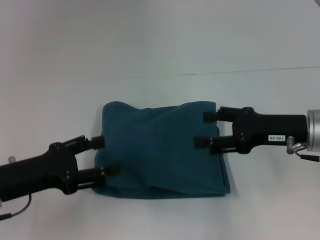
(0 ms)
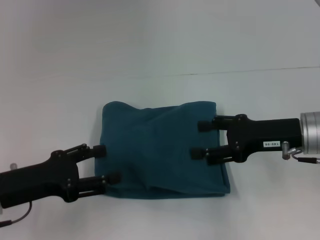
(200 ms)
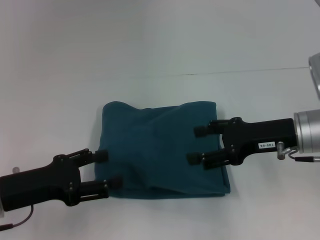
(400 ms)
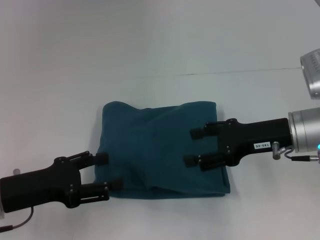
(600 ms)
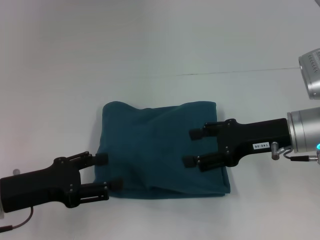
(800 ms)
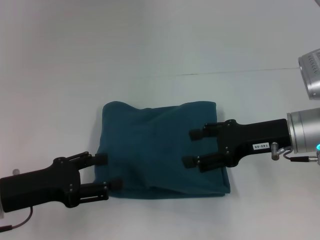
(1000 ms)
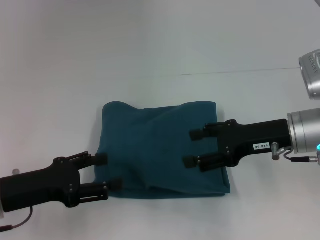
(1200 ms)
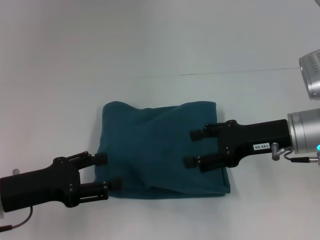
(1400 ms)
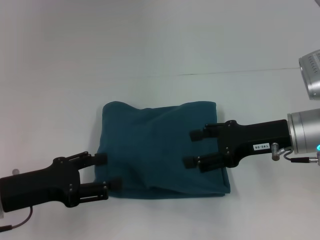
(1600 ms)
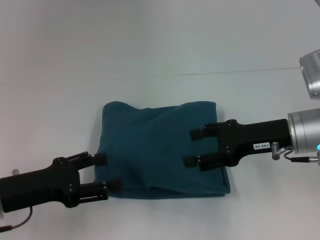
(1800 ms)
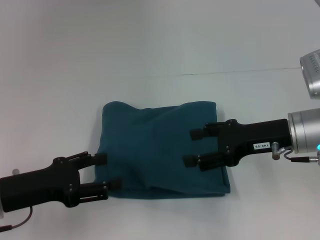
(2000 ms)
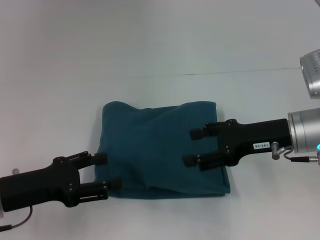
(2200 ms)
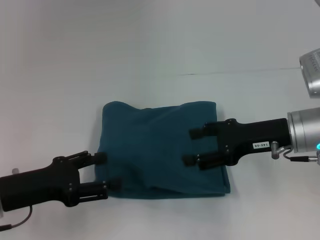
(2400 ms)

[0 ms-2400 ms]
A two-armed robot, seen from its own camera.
0 ms to 1200 ms: There are only small adjustments of the grippers.
1200 ms to 2400 ms: Both grippers stay about where they are.

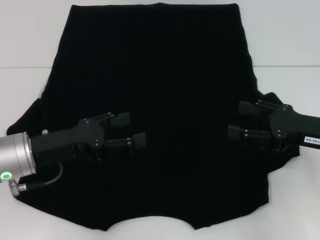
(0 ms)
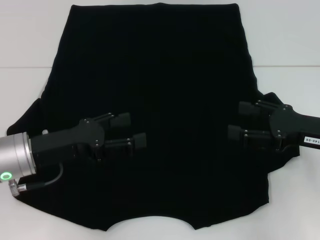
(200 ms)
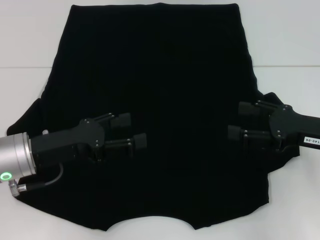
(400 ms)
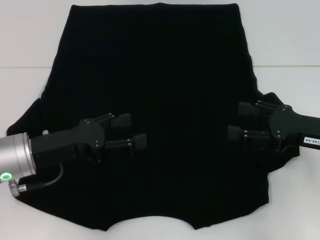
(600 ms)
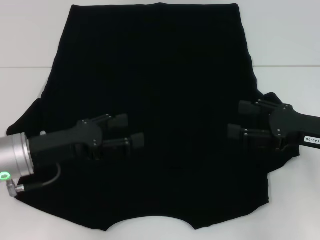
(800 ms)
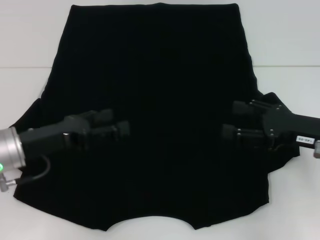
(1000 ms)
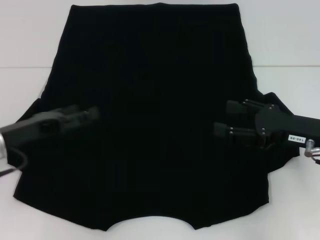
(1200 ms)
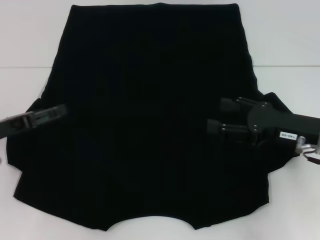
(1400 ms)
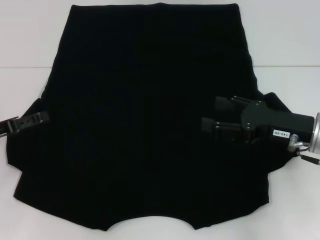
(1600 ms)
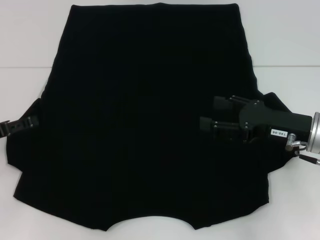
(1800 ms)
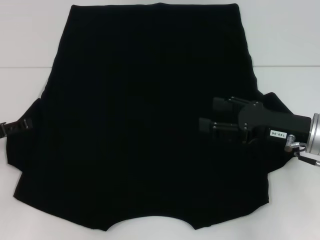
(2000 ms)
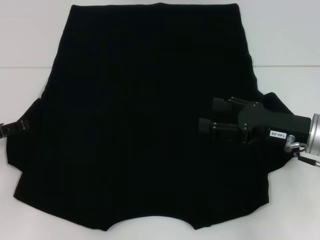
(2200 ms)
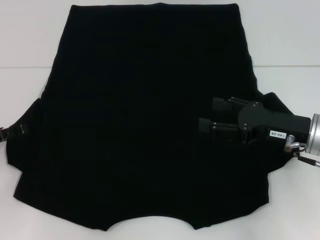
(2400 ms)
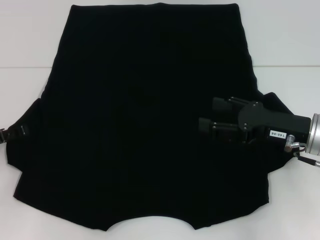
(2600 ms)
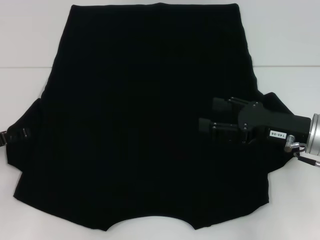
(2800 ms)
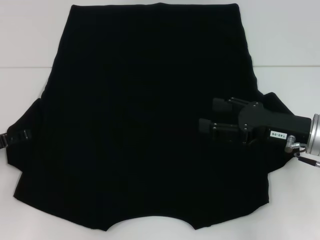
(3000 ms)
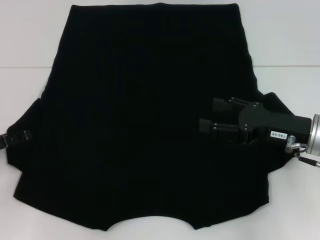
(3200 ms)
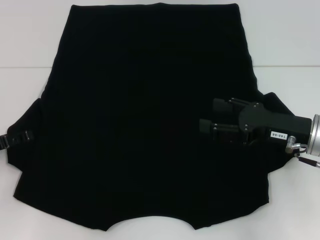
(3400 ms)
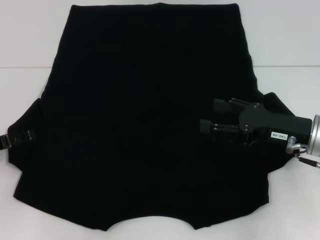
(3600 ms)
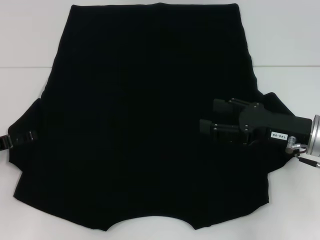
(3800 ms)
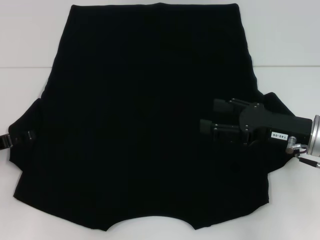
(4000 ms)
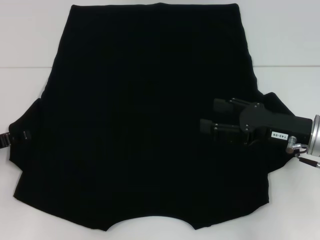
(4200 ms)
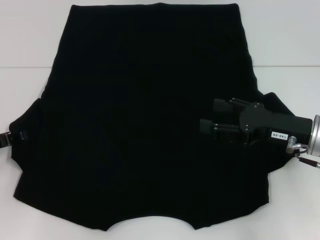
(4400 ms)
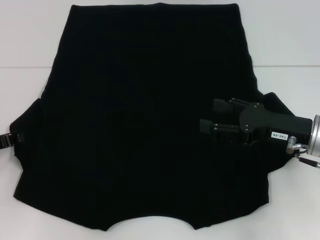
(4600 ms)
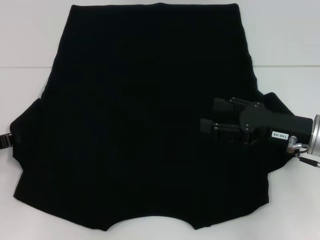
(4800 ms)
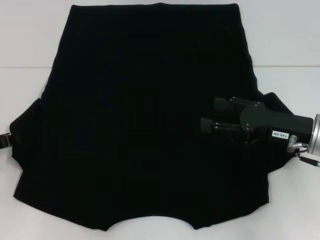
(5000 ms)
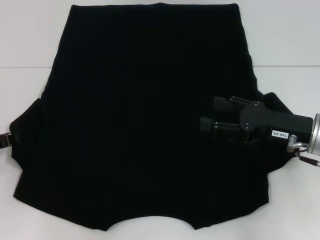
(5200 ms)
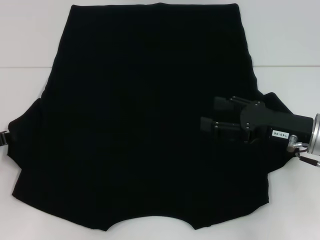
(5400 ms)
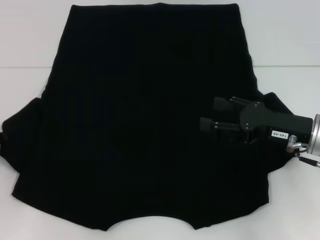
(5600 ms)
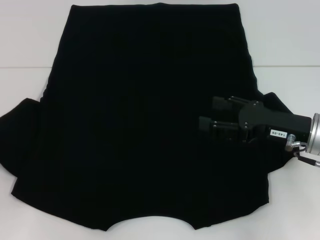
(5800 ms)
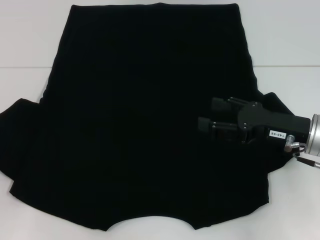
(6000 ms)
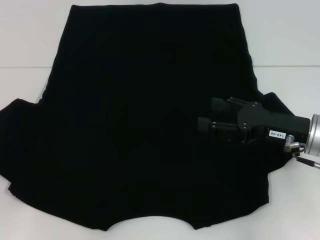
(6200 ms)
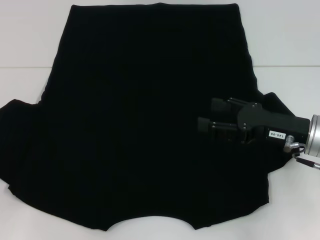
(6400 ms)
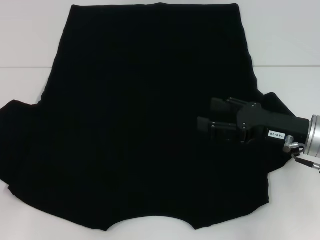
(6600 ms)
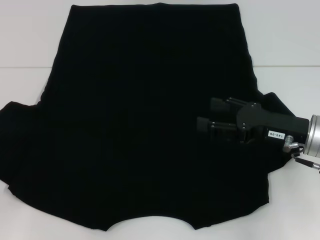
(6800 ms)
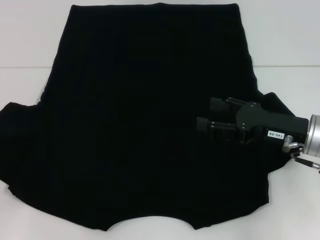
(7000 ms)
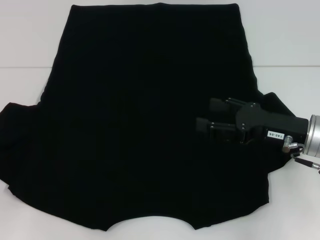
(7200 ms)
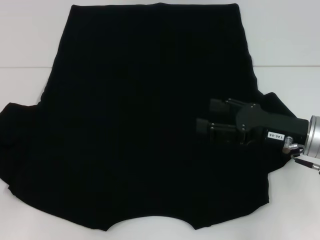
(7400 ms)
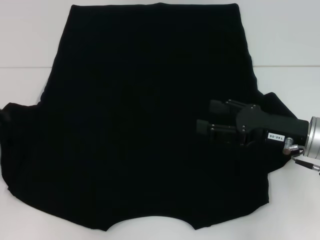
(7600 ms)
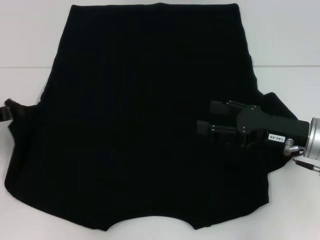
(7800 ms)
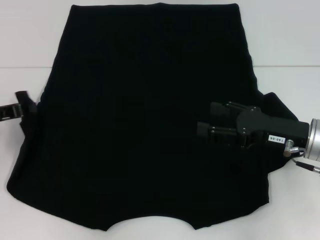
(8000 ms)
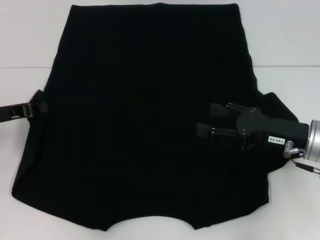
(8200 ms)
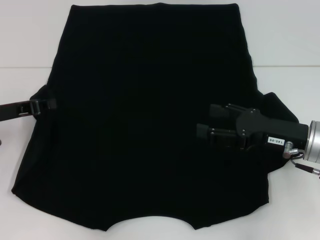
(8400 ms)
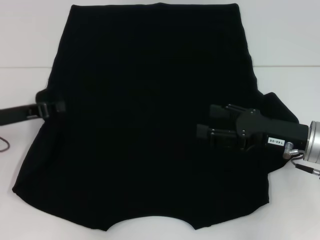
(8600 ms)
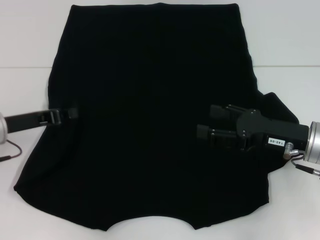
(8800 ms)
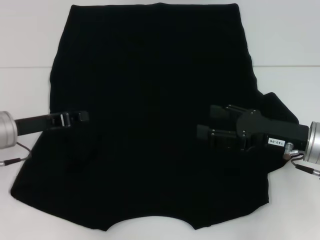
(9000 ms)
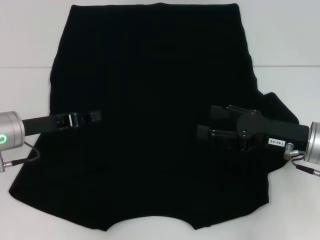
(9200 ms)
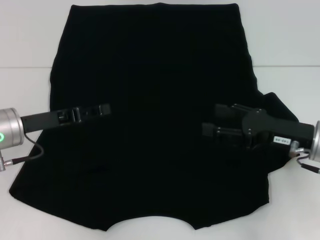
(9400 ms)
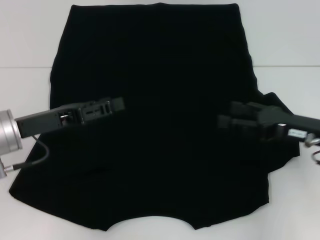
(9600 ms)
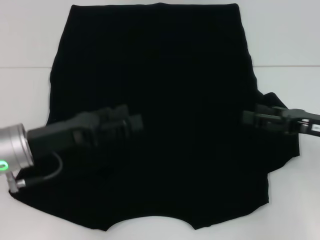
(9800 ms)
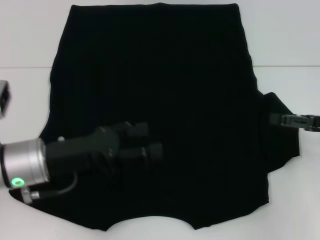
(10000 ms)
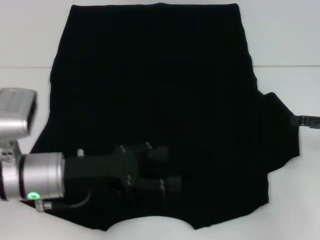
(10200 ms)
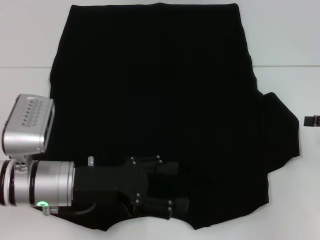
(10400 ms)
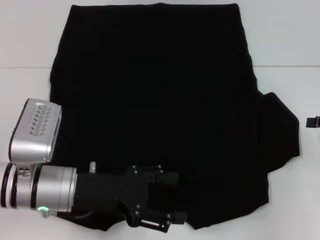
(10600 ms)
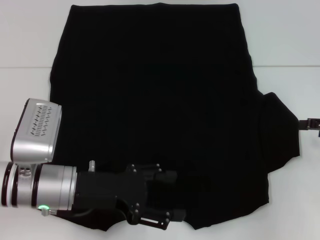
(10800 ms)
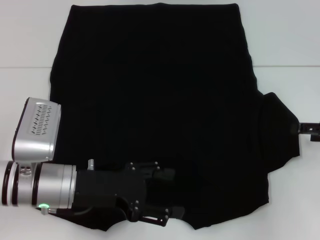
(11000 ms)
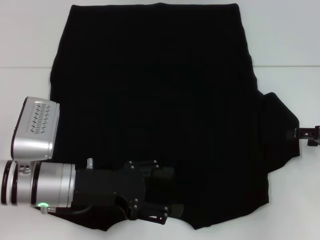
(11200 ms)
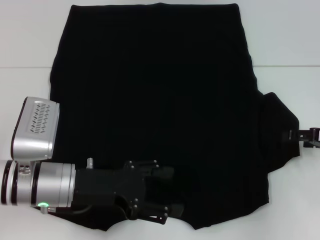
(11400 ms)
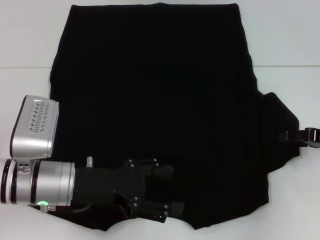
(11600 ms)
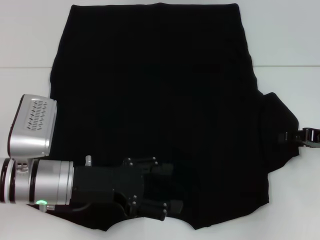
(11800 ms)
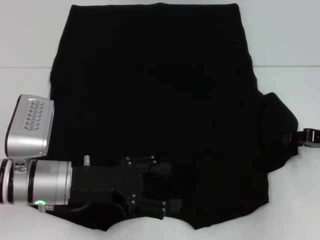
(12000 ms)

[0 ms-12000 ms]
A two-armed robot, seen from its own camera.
Step, 0 ms to 9400 ms: Fold the bottom left sleeve with your left hand.
0 ms to 1600 ms: The left gripper goes some 10 cm to the left.
1600 ms to 3000 ms: There are only small adjustments of the grippers.
3000 ms to 4400 ms: Neither gripper changes place.
4400 ms to 6000 ms: The left gripper closes.
6000 ms to 7600 ms: The grippers move only a little.
7600 ms to 9000 ms: The left gripper is displaced to the right by some 10 cm.
9000 ms to 10400 ms: The right gripper moves to the right, approximately 15 cm. The left gripper goes about 10 cm to the right and backward, and opens its fingers.
10400 ms to 12000 ms: The right gripper shifts by roughly 5 cm.

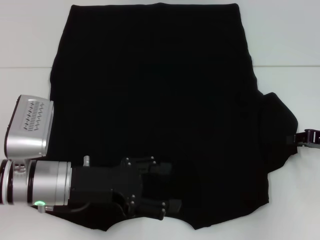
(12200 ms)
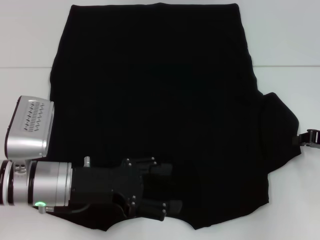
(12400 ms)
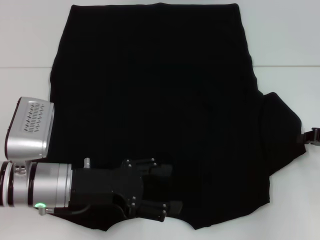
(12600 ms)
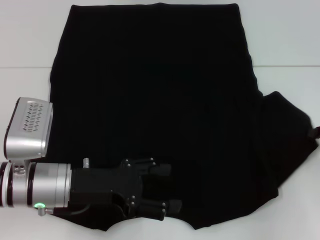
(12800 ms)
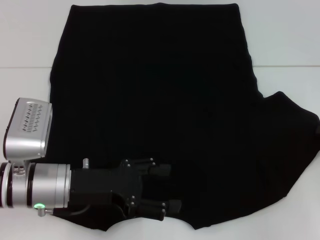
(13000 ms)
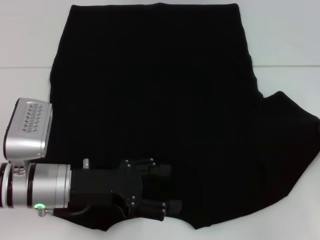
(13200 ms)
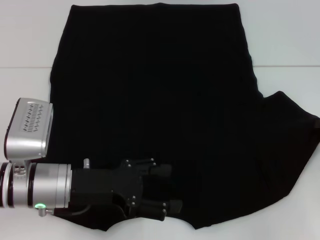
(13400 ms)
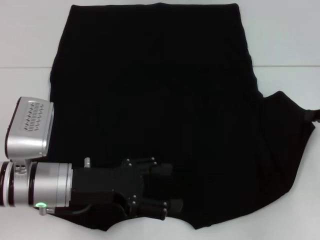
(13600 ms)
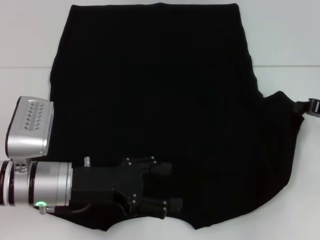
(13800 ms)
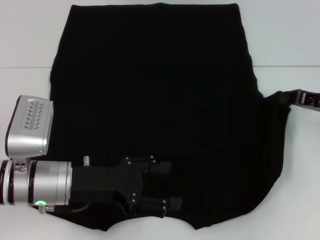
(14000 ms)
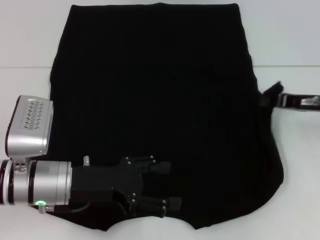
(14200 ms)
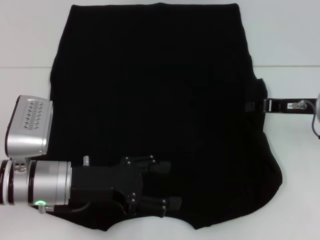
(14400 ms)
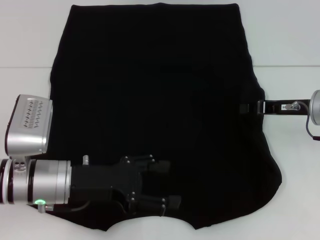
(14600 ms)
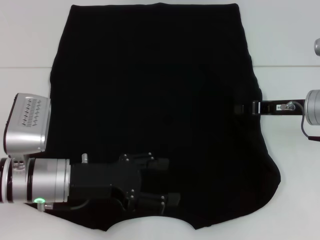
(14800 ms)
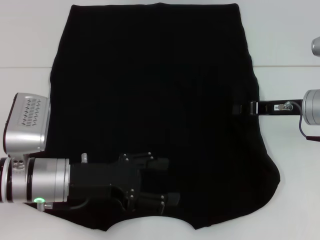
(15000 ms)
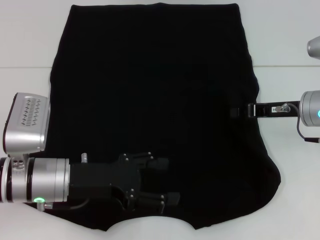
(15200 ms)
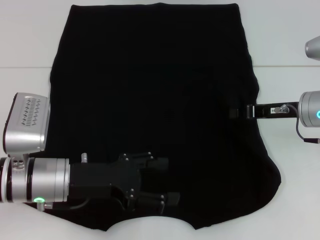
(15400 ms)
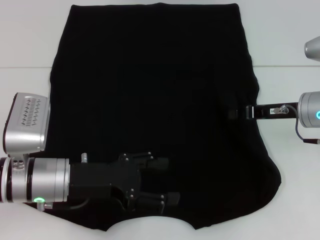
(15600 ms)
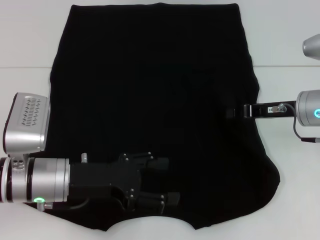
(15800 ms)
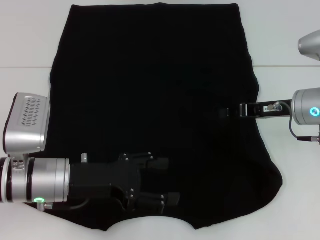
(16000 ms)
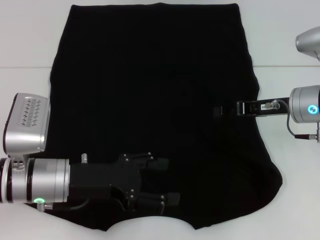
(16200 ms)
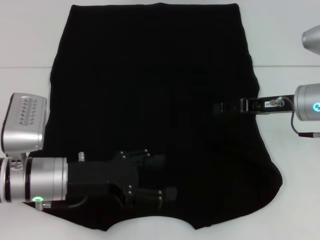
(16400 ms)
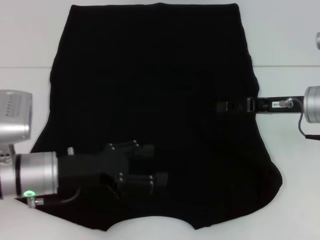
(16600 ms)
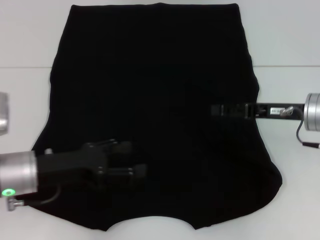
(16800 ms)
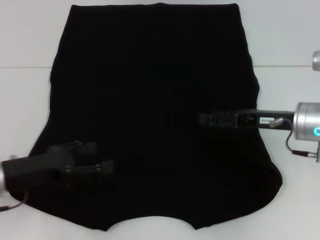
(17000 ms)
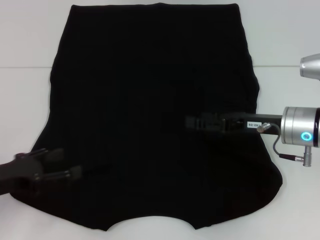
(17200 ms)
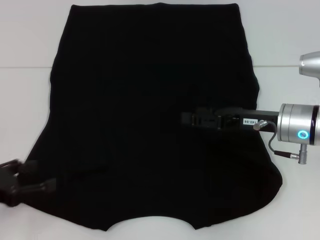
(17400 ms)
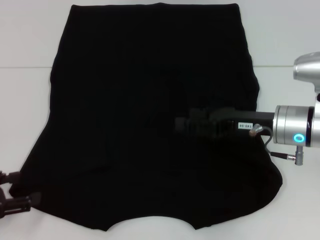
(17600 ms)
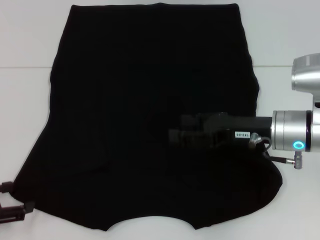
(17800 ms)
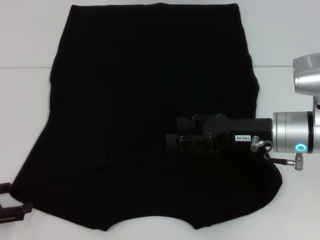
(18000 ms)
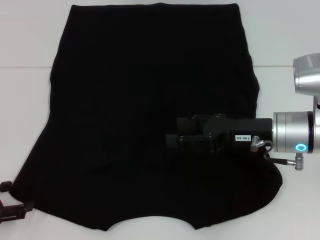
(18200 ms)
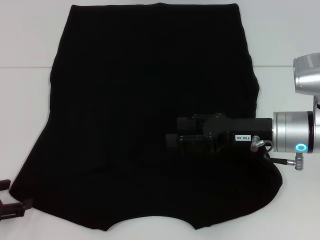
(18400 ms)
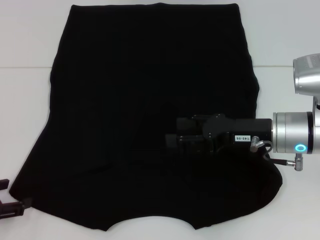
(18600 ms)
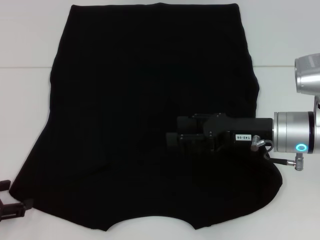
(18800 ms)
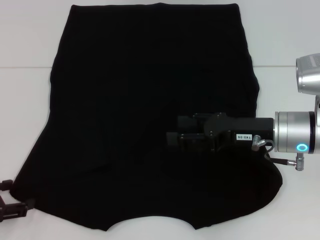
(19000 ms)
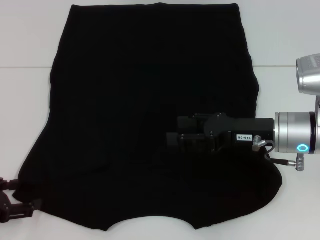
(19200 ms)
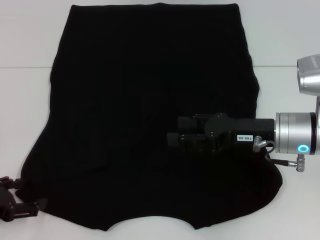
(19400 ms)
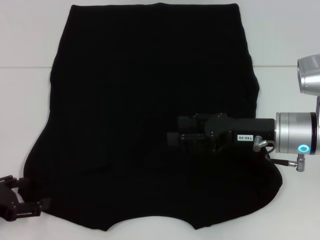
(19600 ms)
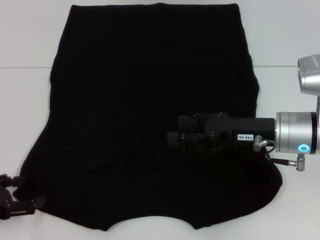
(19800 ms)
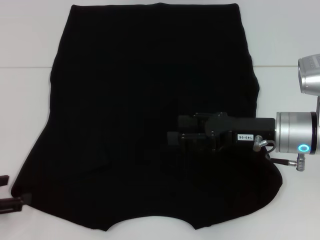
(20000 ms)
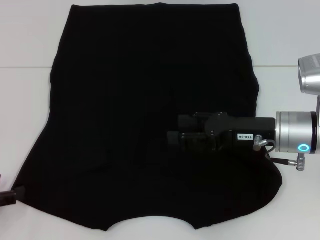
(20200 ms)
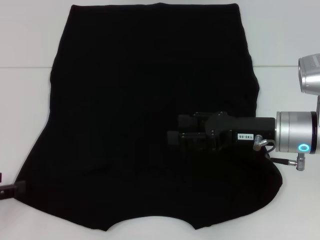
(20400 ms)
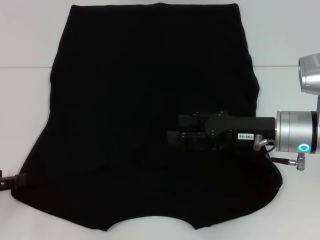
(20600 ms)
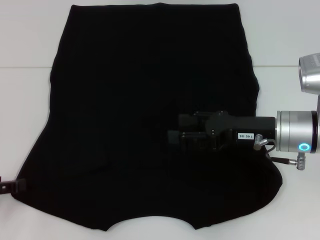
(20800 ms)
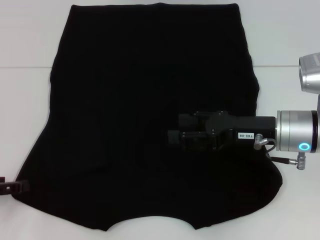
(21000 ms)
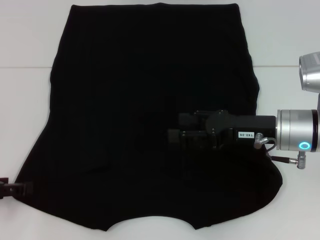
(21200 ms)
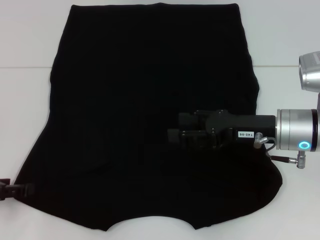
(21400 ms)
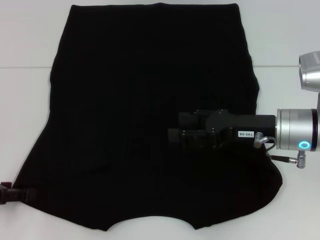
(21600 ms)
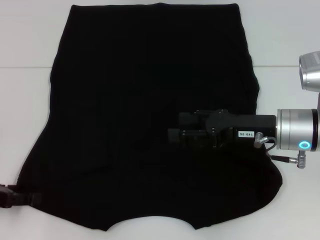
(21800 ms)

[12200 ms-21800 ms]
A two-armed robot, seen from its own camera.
Step, 12200 ms to 16600 ms: Fold the bottom right sleeve with your right hand.
12200 ms to 13800 ms: The right gripper closes its fingers.
13800 ms to 15400 ms: The right gripper heads to the left, covering roughly 10 cm.
15400 ms to 17000 ms: The left gripper goes about 10 cm to the left; the right gripper opens.
17000 ms to 18600 ms: The left gripper goes about 10 cm to the left and backward.
18600 ms to 20200 ms: There are only small adjustments of the grippers.
20200 ms to 21800 ms: The grippers stay close to where they were, moving slightly.
